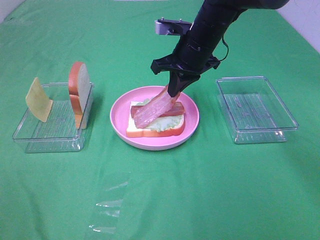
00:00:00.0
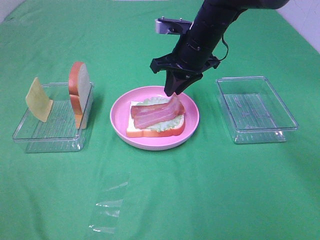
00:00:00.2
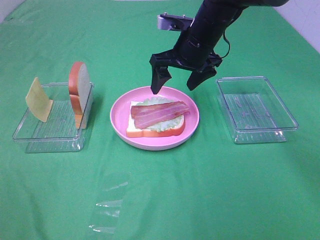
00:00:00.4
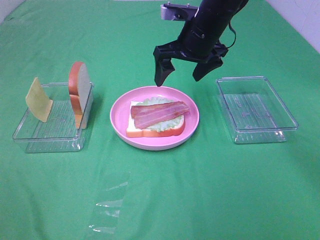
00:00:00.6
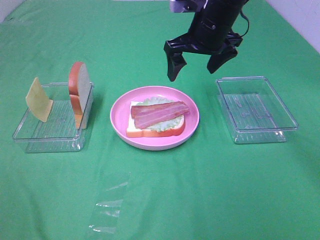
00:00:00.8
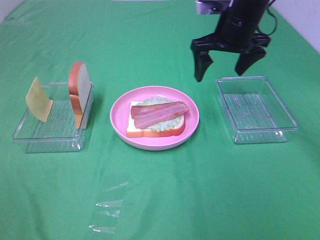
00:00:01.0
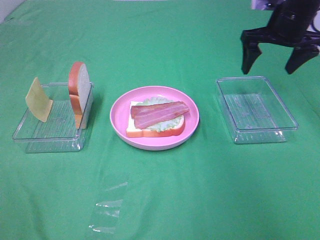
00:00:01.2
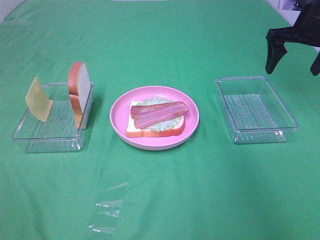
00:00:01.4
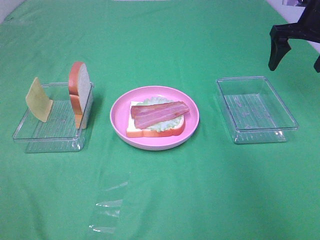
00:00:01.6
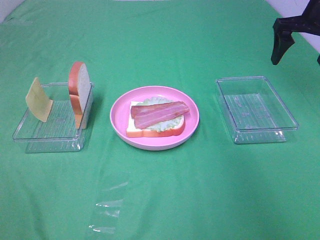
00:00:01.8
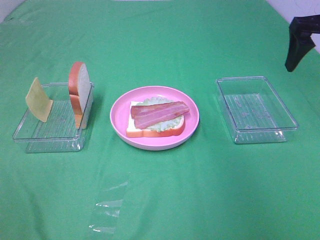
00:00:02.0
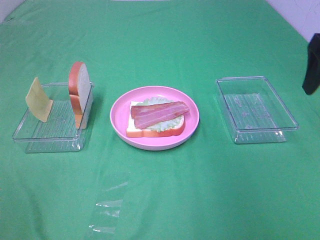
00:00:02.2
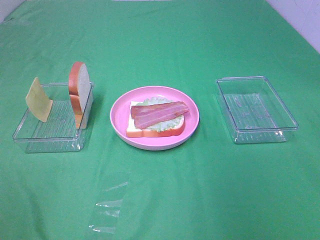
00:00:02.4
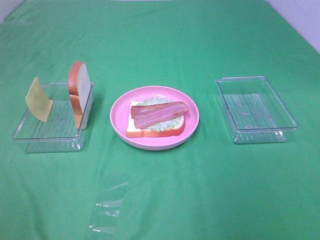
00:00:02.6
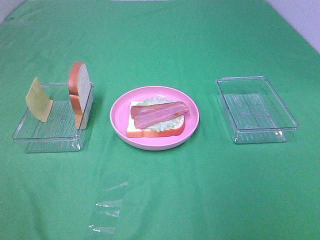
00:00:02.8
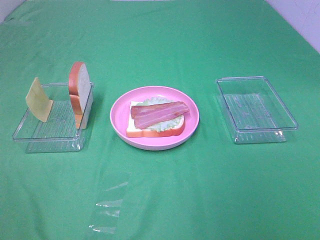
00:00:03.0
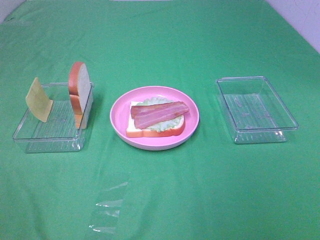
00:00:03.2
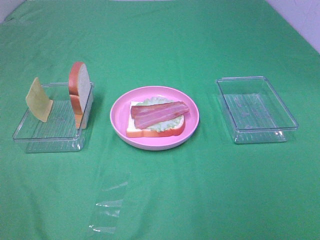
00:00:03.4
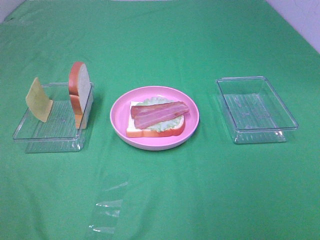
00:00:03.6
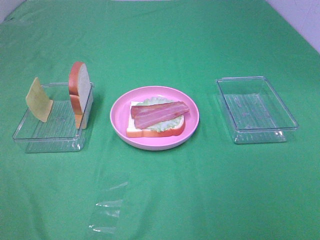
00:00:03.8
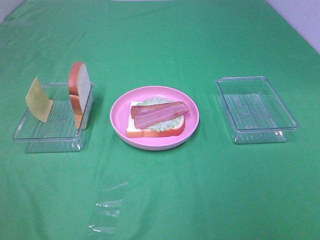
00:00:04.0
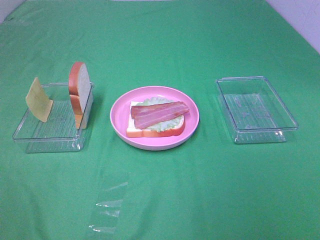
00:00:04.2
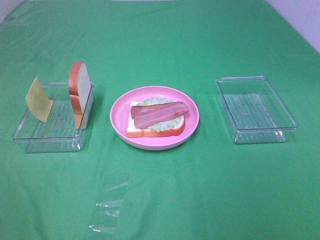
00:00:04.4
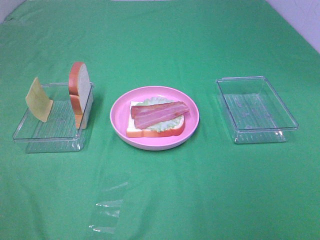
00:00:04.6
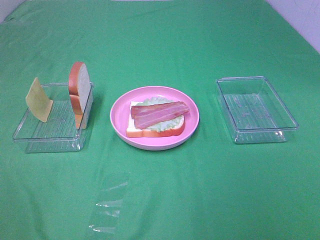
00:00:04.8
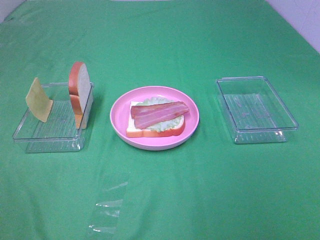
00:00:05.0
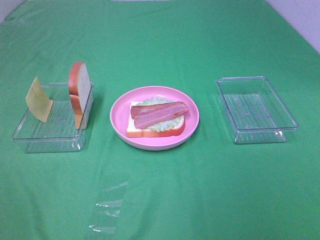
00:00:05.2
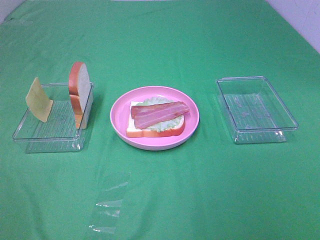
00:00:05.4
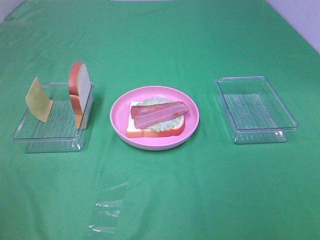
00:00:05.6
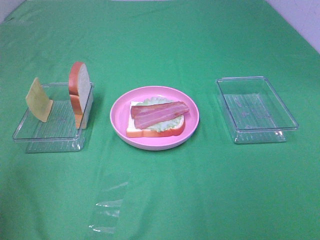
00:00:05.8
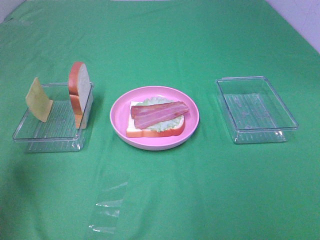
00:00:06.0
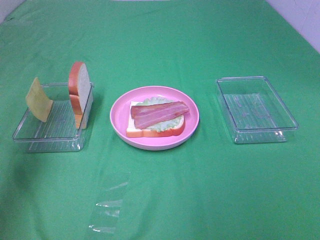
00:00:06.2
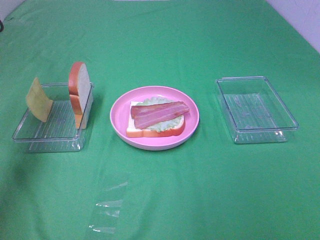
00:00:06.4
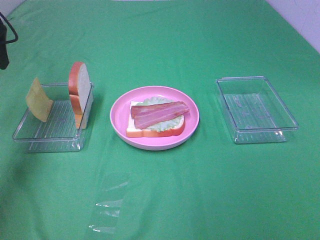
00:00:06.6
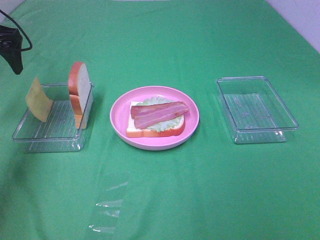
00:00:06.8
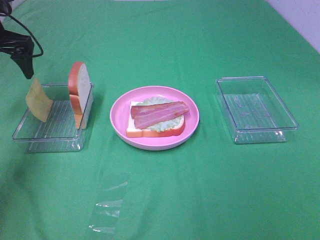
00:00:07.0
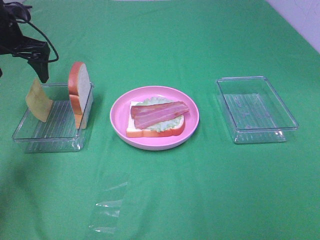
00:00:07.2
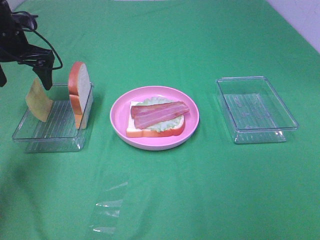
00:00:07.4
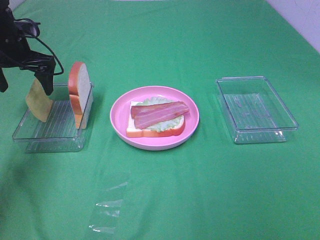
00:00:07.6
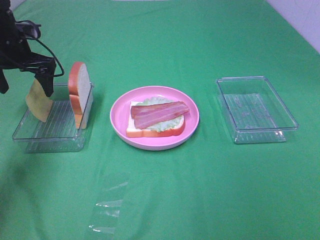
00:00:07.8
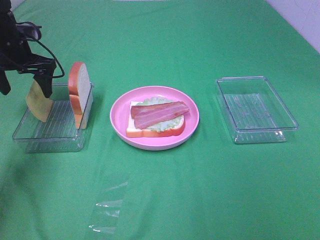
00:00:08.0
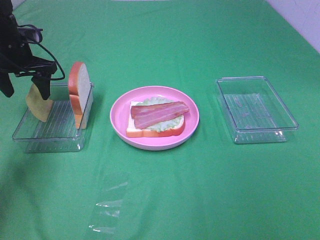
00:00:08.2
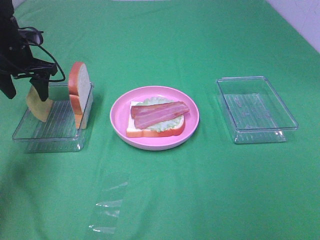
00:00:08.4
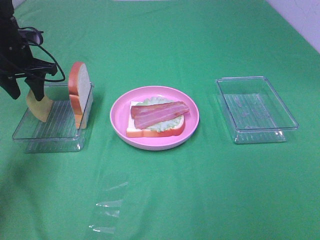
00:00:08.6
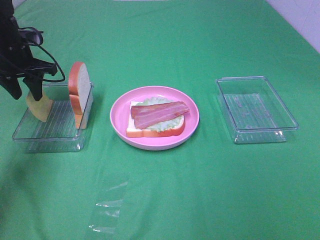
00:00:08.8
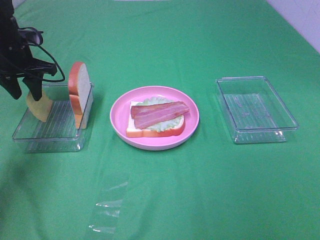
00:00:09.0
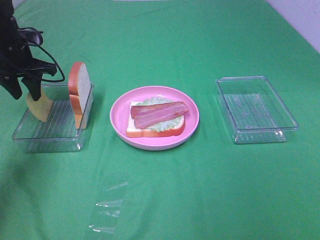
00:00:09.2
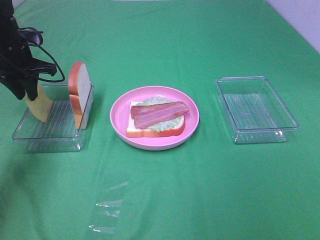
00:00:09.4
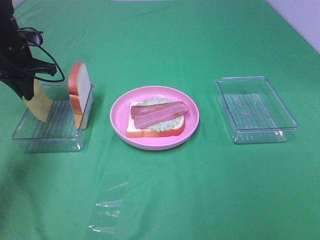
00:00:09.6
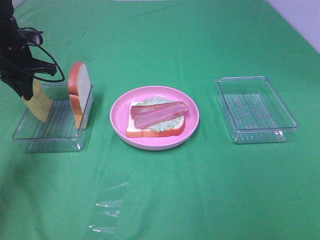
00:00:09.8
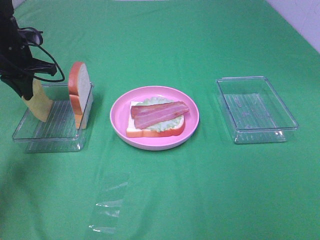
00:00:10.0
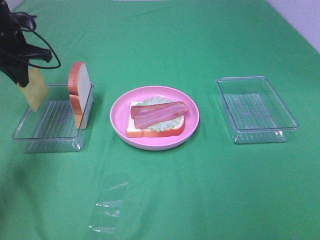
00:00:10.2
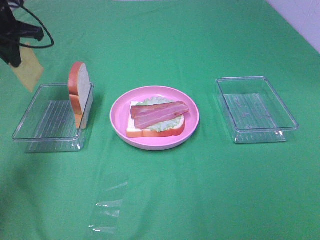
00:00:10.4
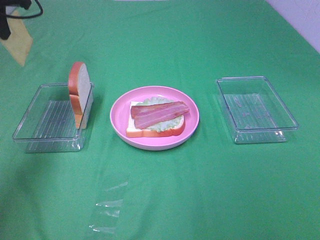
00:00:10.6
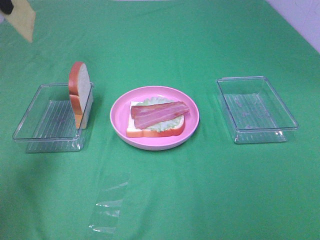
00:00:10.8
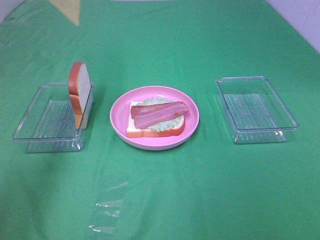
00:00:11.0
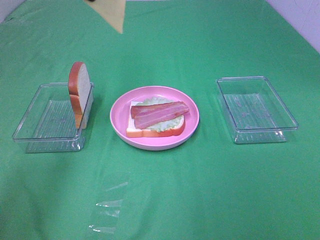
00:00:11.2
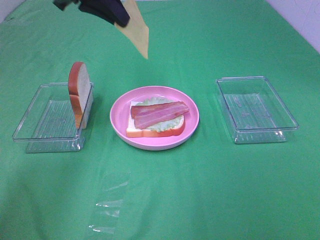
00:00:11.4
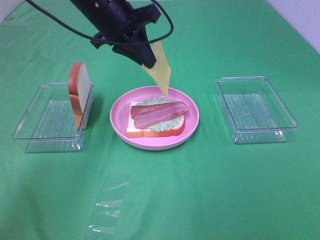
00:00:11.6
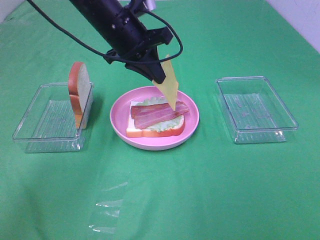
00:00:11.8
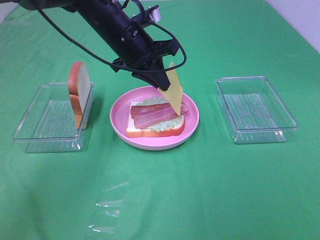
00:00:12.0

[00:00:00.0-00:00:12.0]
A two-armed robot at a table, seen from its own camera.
Task of the whole recording: Make sandwiches.
Step, 00:00:00.4 to 00:00:10.0: Left hand:grab the cheese slice.
00:00:00.0 to 00:00:01.6: The right gripper is displaced to the right by some 20 cm, and opens.
00:00:01.6 to 00:00:03.0: The right gripper moves backward, about 40 cm.
00:00:04.4 to 00:00:06.0: The left gripper shifts about 25 cm forward and upward.
00:00:06.0 to 00:00:07.6: The left gripper heads forward and downward, covering roughly 35 cm.
00:00:07.6 to 00:00:09.0: The left gripper closes up.
00:00:09.0 to 00:00:10.4: The left gripper shifts about 10 cm upward, and closes up.
00:00:10.4 to 00:00:12.0: The left gripper moves to the right, approximately 25 cm.

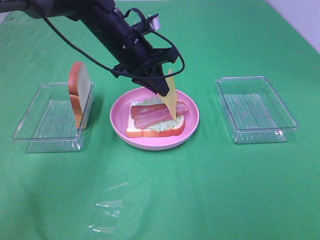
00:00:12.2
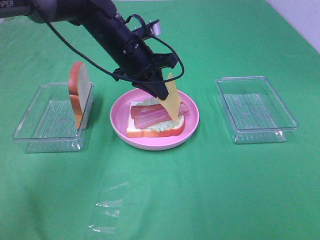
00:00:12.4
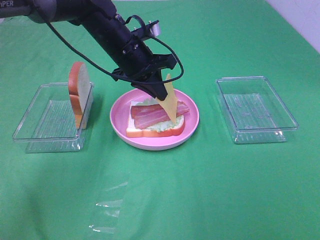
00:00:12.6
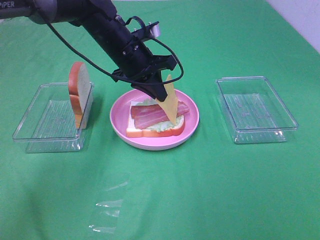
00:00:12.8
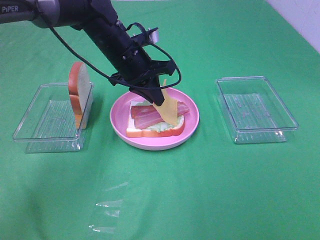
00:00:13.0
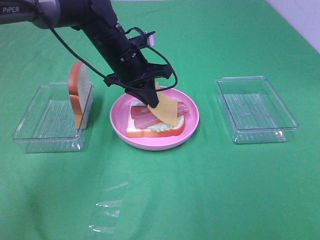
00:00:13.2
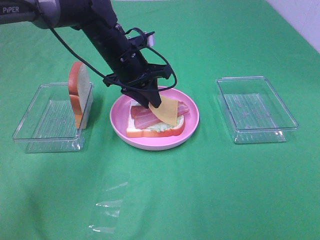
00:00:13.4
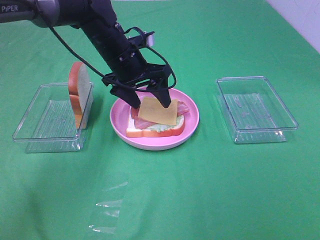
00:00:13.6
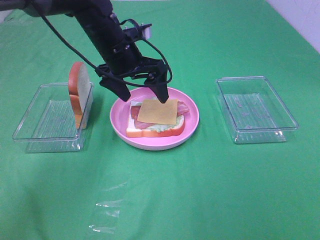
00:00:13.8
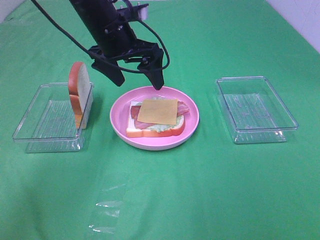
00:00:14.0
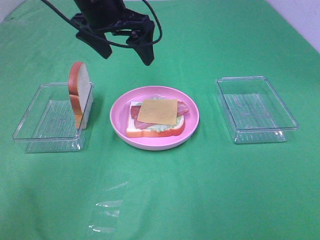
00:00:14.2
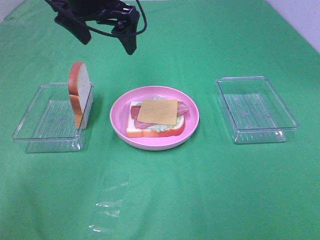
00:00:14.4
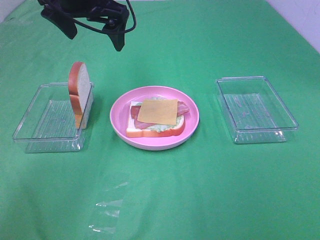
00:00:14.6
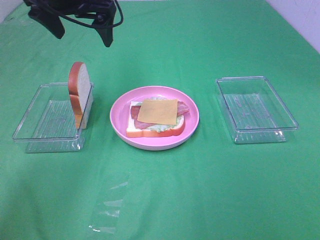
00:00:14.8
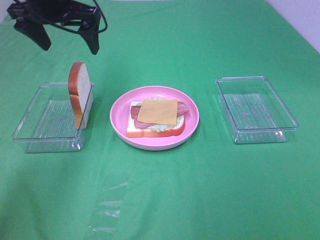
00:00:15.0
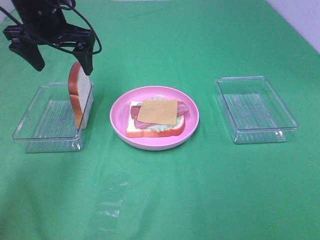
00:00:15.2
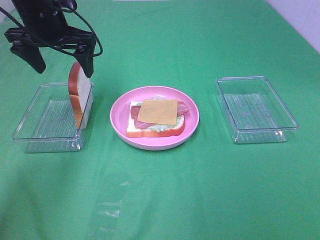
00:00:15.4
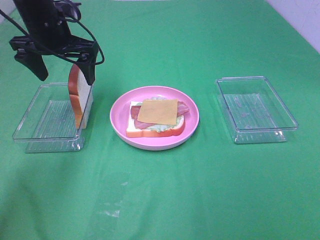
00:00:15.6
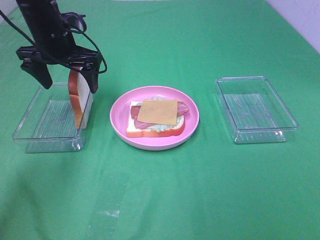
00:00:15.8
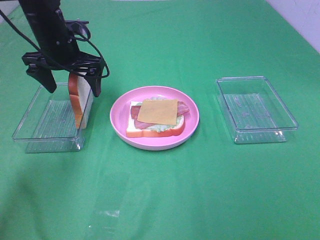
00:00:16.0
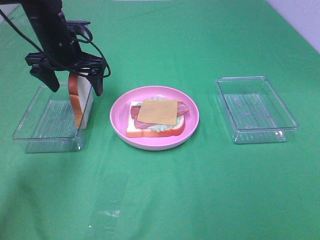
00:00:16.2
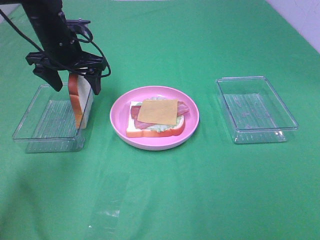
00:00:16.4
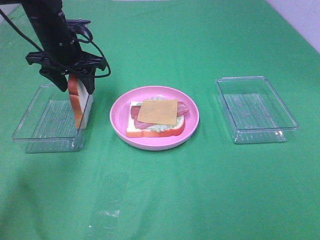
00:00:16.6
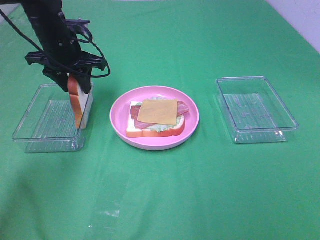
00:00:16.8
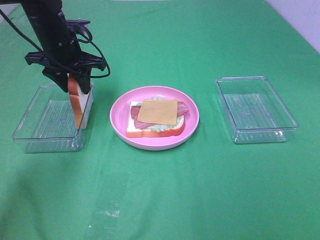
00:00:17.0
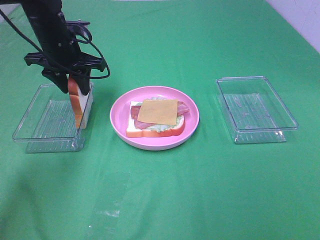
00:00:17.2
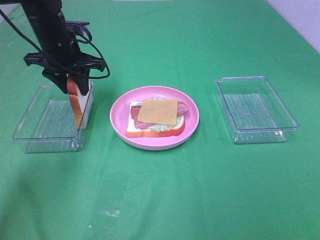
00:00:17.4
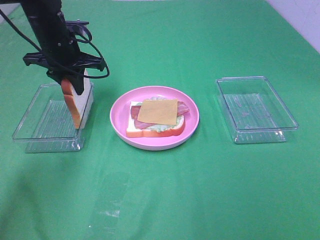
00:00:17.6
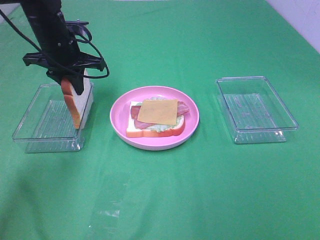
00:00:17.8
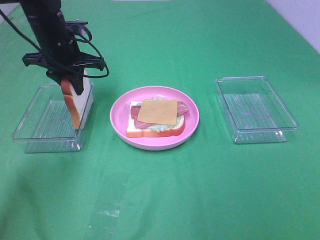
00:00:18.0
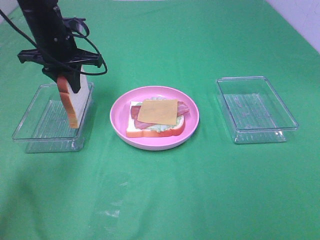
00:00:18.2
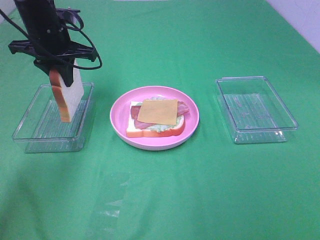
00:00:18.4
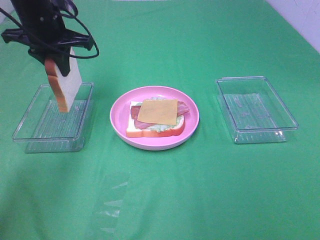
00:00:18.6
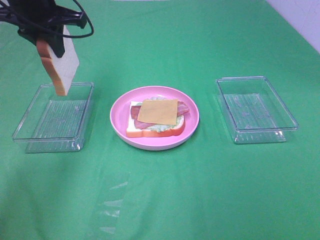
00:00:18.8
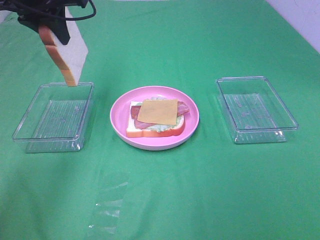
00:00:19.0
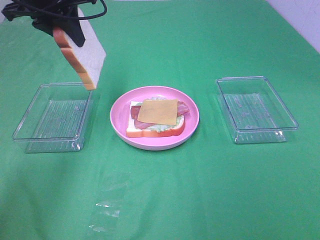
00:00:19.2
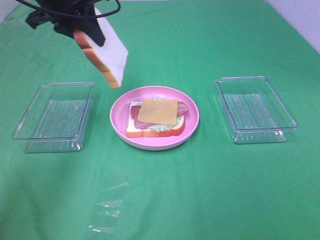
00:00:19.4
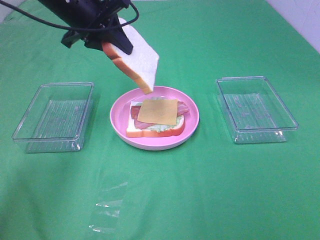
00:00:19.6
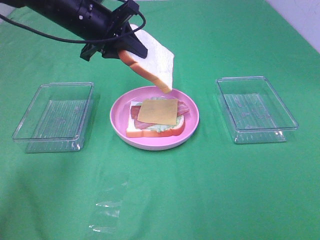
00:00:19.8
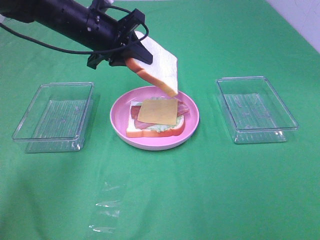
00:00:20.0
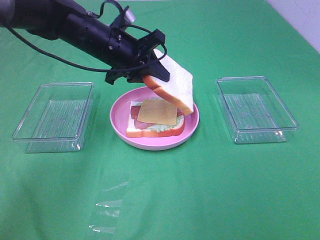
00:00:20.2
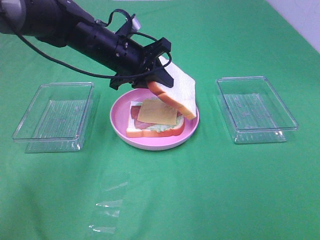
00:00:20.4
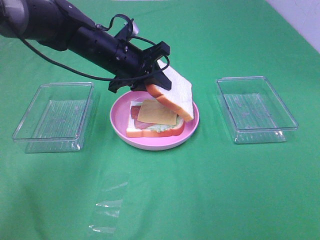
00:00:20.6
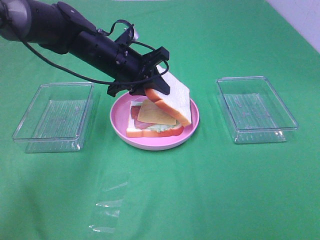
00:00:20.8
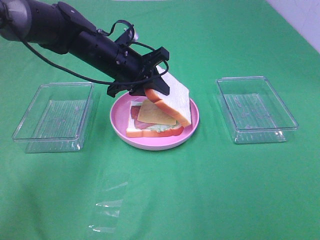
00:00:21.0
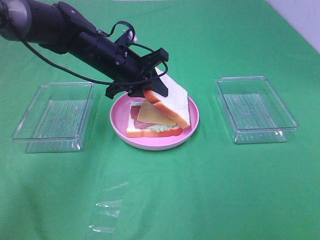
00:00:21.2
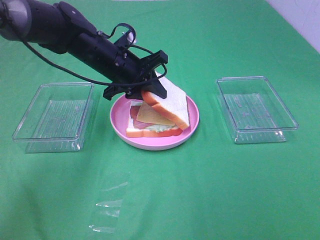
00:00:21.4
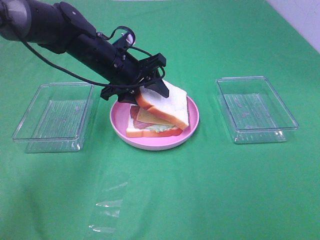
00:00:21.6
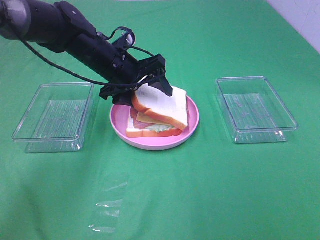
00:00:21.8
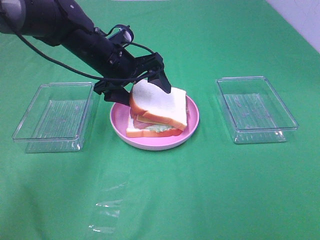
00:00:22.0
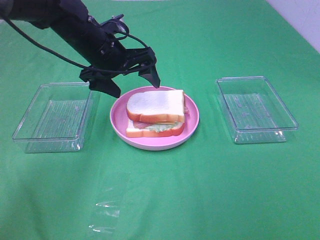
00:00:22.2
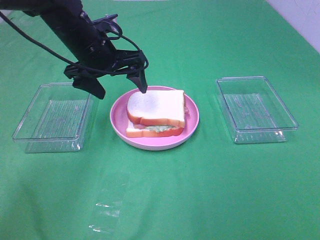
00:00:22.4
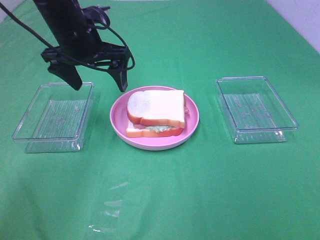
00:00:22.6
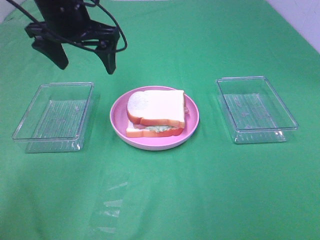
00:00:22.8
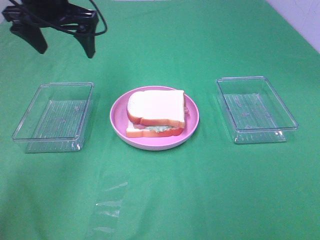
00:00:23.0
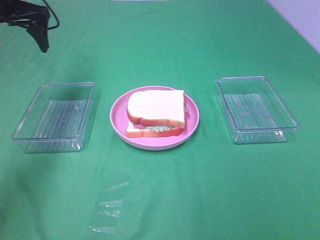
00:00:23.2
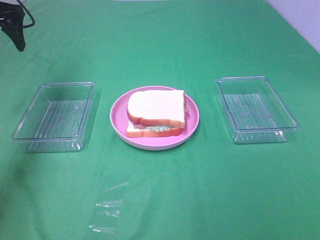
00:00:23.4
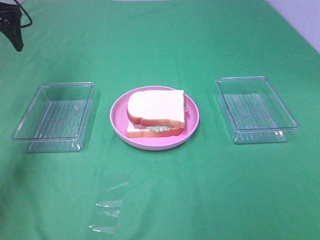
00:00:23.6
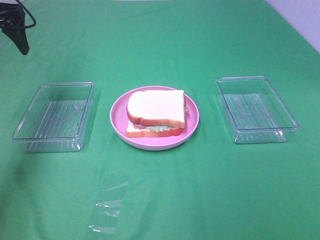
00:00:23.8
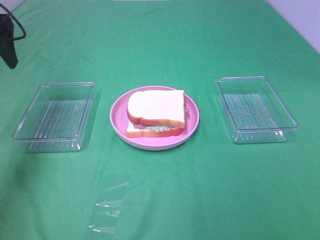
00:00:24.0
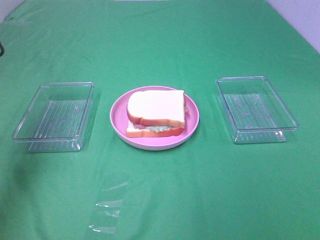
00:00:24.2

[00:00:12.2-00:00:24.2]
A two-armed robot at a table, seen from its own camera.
Task of the whole recording: Make sandwiches.
Step, 00:00:13.8 to 00:00:17.6: Left hand:grab the bread slice.
Step, 00:00:17.8 to 00:00:22.0: Left hand:place the bread slice on the cheese slice.
00:00:12.2 to 00:00:13.8: The left gripper opens up.
00:00:13.8 to 00:00:15.2: The left gripper shifts roughly 15 cm to the left and upward.
00:00:15.2 to 00:00:16.6: The left gripper travels downward by about 5 cm, and closes.
00:00:16.6 to 00:00:18.2: The left gripper closes its fingers.
00:00:18.2 to 00:00:19.8: The left gripper travels to the right by approximately 5 cm, and travels upward and back again, approximately 10 cm each way.
00:00:19.8 to 00:00:21.2: The left gripper goes approximately 5 cm downward.
00:00:21.2 to 00:00:22.6: The left gripper travels upward by some 10 cm, and opens its fingers.
00:00:22.6 to 00:00:24.2: The left gripper moves to the left and backward, approximately 20 cm.
